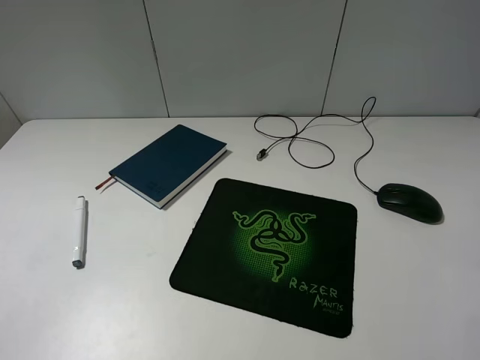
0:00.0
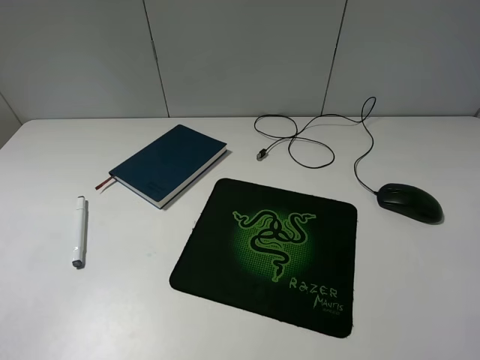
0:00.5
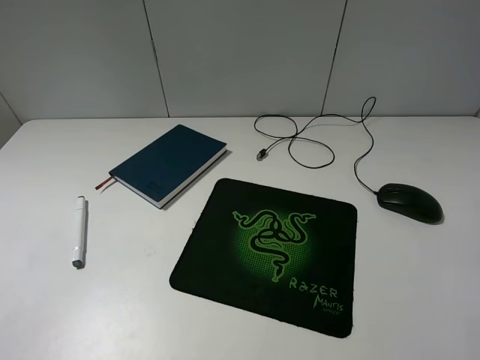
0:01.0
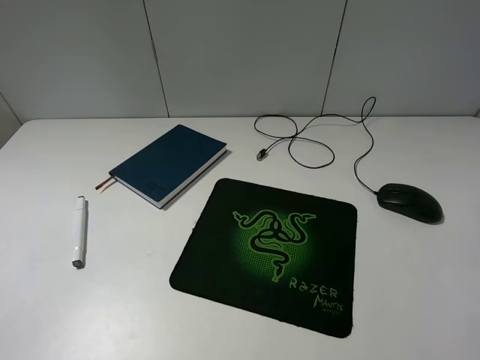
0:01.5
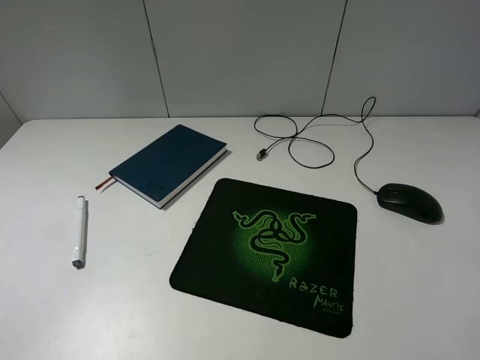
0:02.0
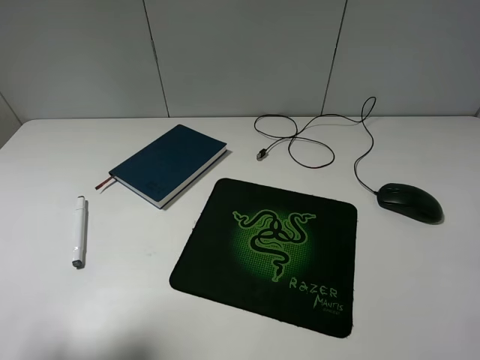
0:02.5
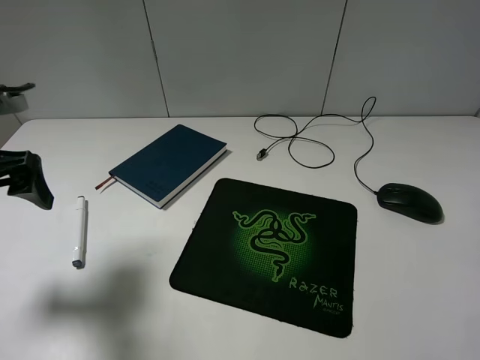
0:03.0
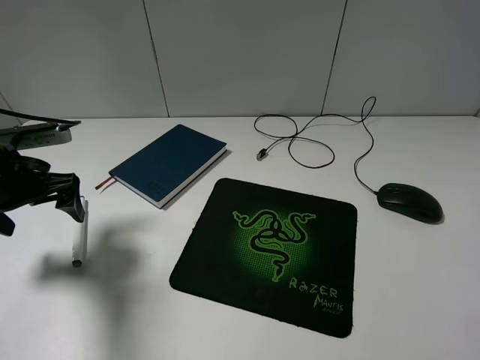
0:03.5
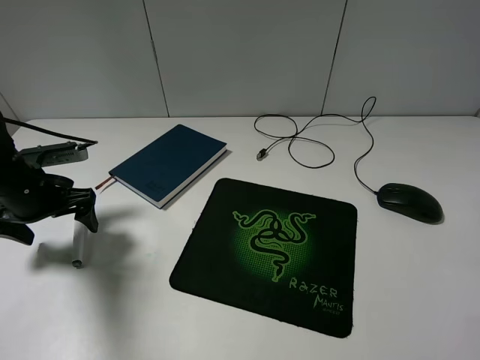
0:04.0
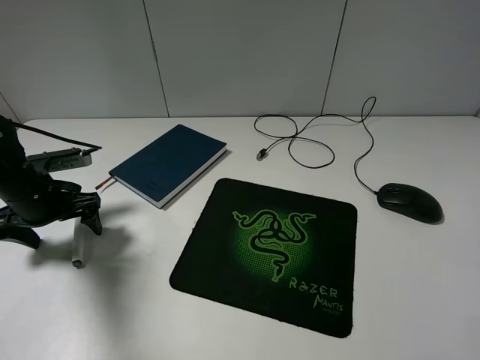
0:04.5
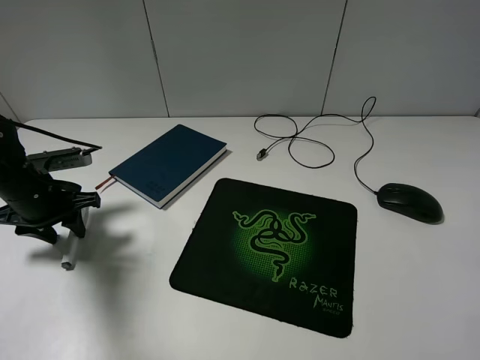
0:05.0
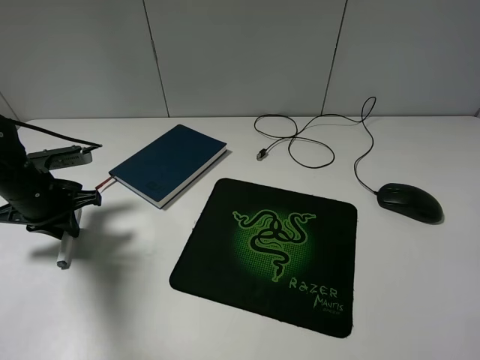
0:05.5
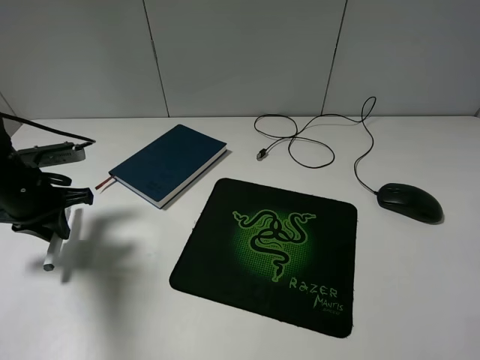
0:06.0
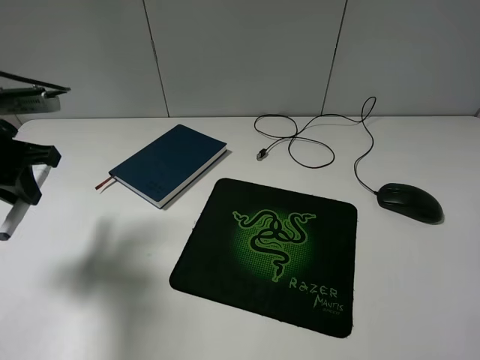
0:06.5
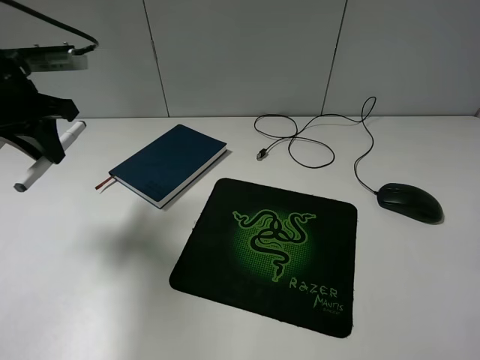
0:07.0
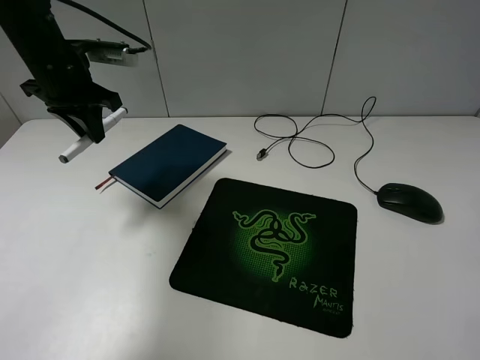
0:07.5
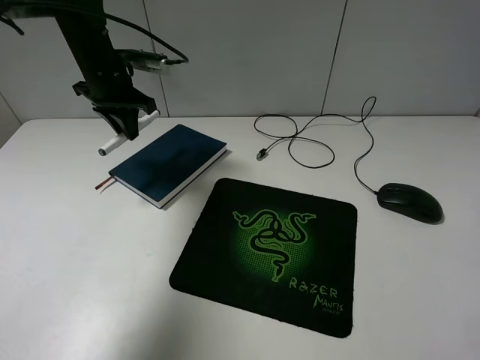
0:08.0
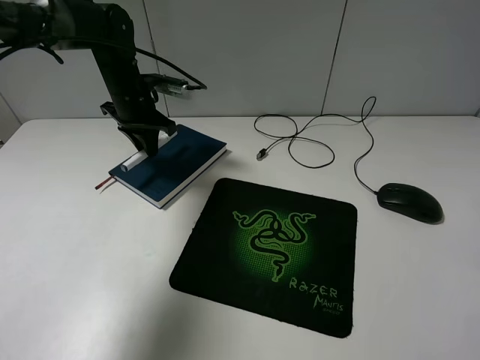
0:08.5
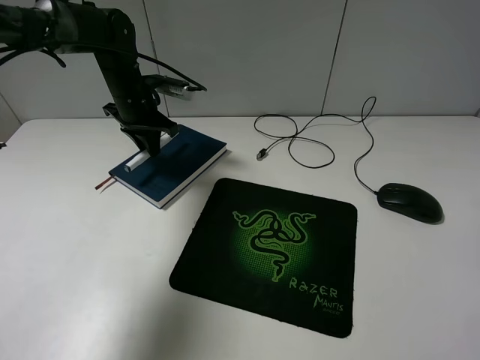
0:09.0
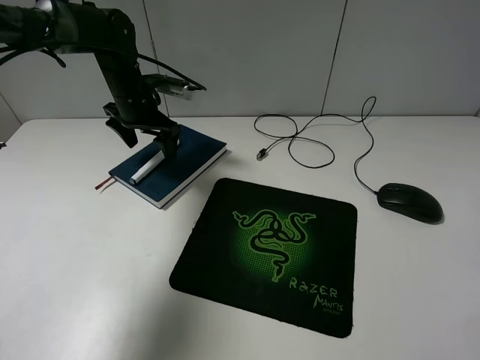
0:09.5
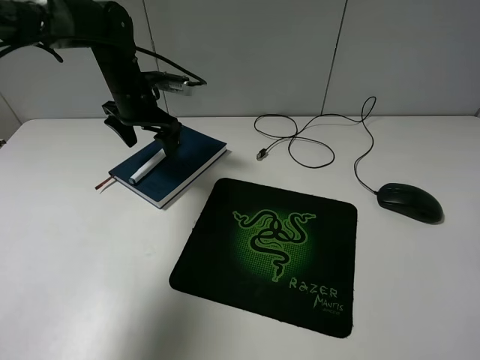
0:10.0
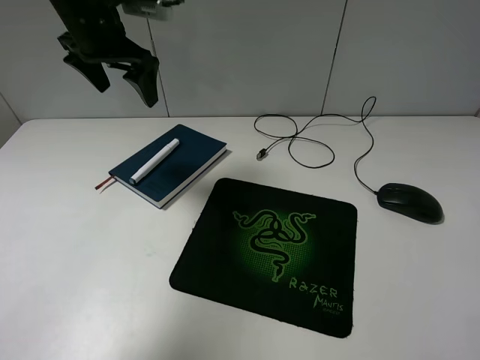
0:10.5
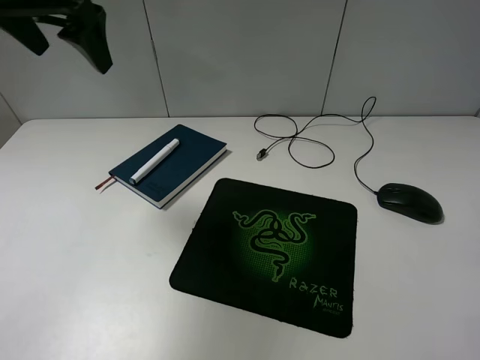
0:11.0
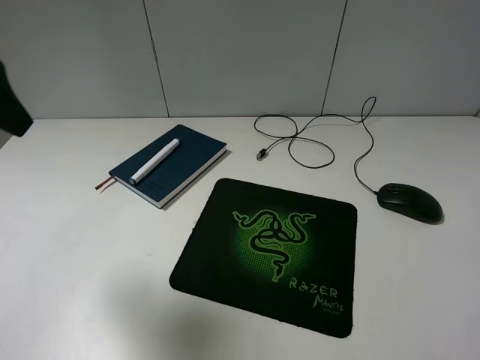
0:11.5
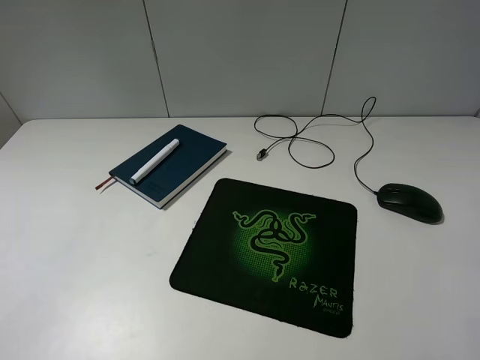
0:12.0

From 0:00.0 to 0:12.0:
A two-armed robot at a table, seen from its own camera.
Step, from 0:00.0 to 0:05.0: Grasp the marker with the left gripper.
Step, from 0:05.5 to 0:09.5: Place the marker on the notebook with the left gripper.
From 0:02.0 to 0:04.0: The left gripper heads forward and downward, covering approximately 30 cm.
From 0:04.0 to 0:06.0: The left gripper closes up.
From 0:06.0 to 0:08.0: The left gripper is displaced forward, to the right and upward by about 20 cm.
From 0:08.0 to 0:10.0: The left gripper opens its fingers.
From 0:10.0 to 0:12.0: The left gripper shifts roughly 40 cm backward and upward.

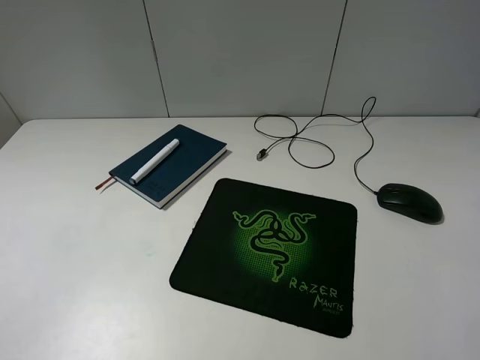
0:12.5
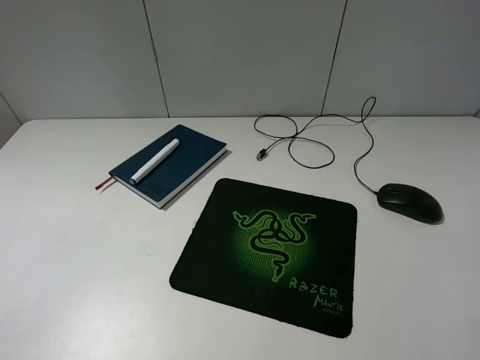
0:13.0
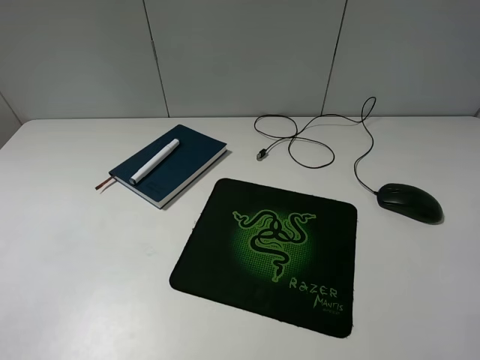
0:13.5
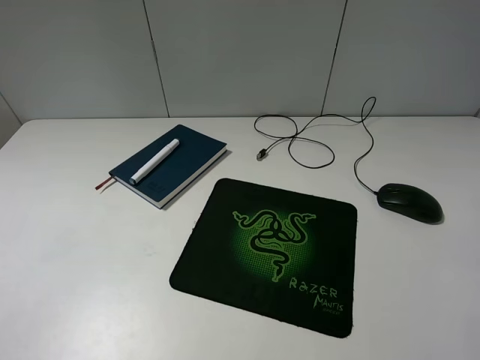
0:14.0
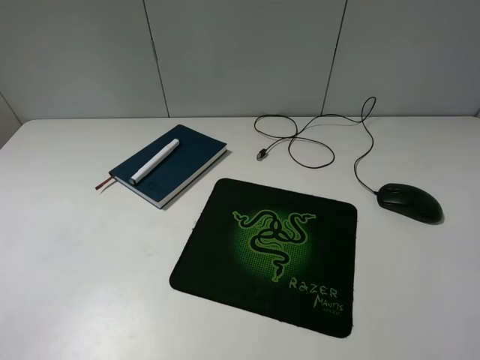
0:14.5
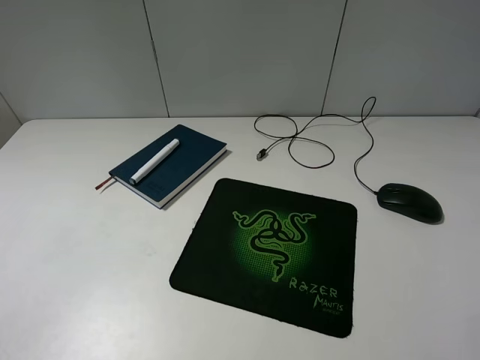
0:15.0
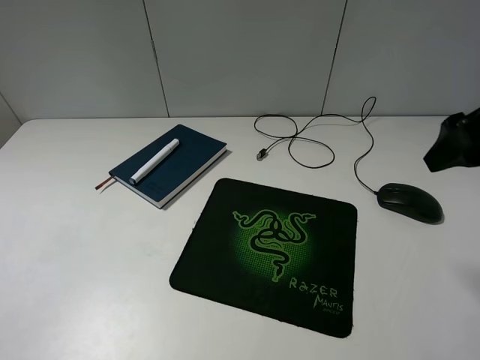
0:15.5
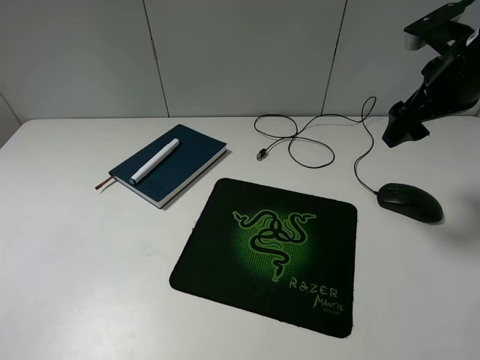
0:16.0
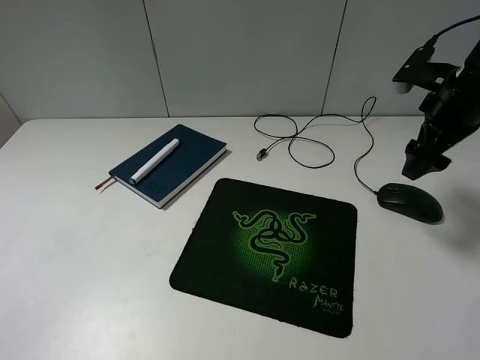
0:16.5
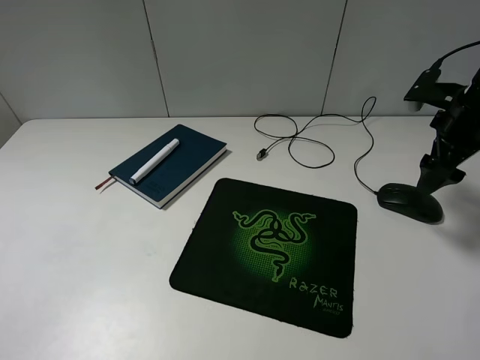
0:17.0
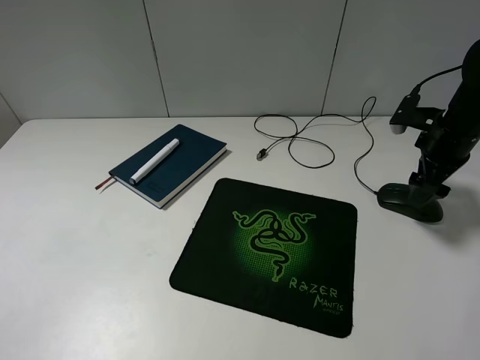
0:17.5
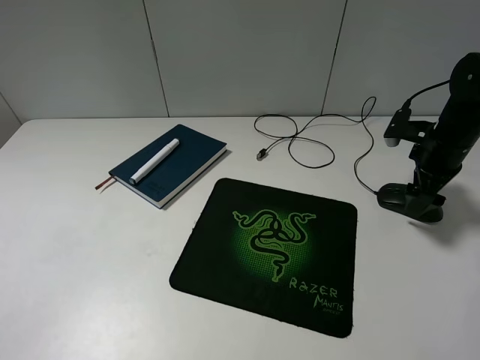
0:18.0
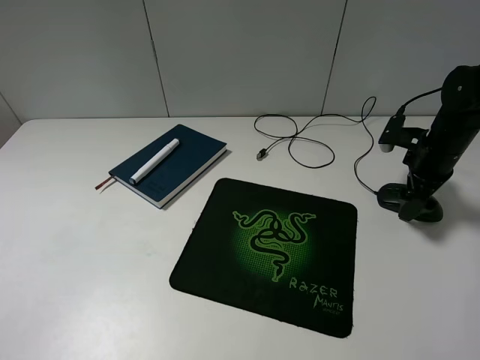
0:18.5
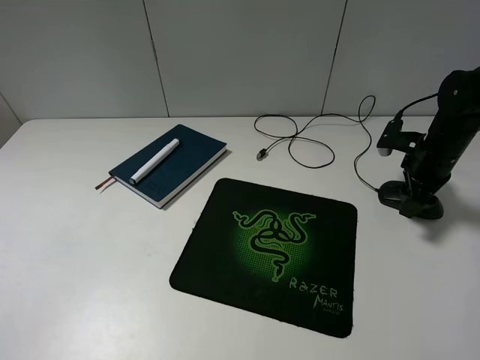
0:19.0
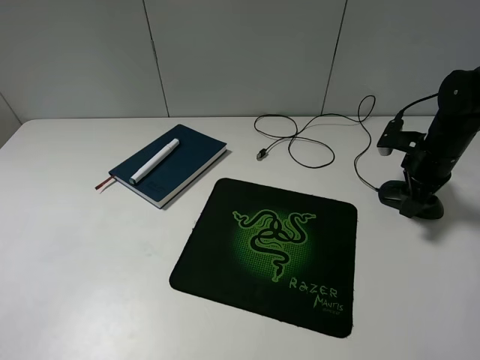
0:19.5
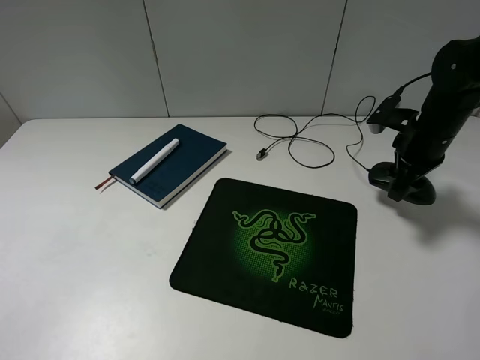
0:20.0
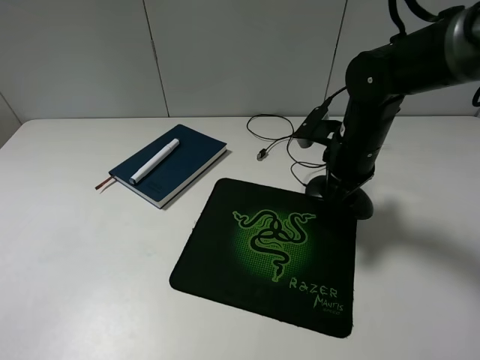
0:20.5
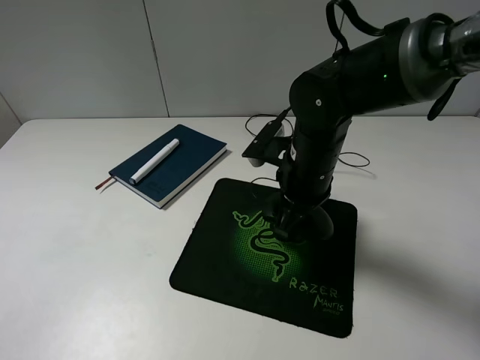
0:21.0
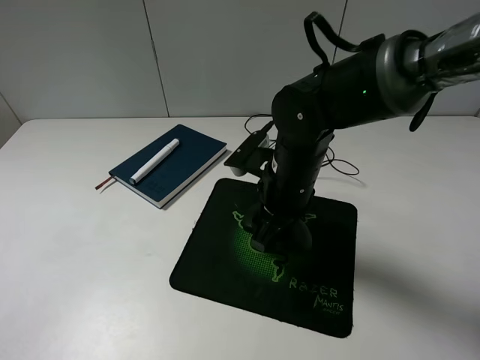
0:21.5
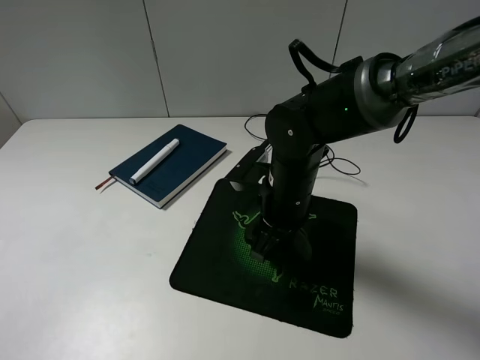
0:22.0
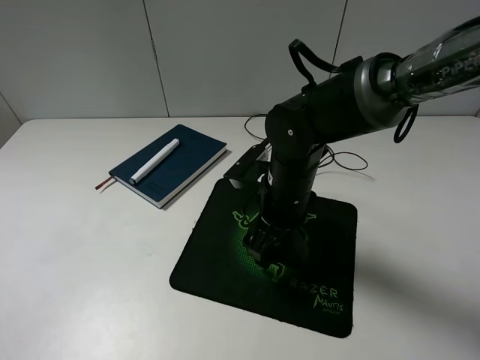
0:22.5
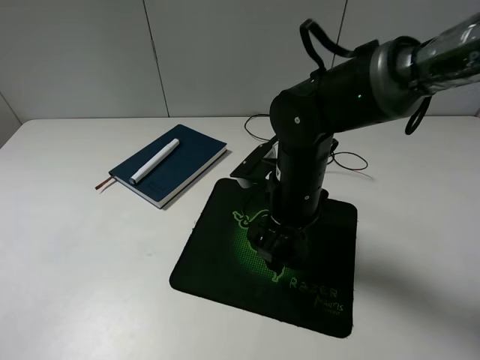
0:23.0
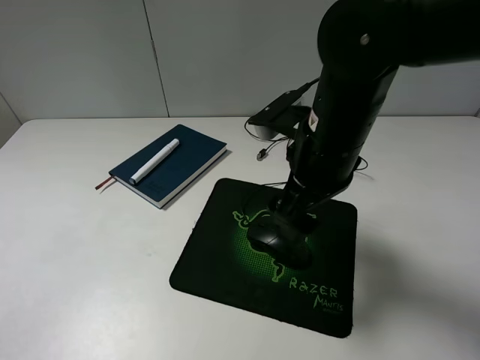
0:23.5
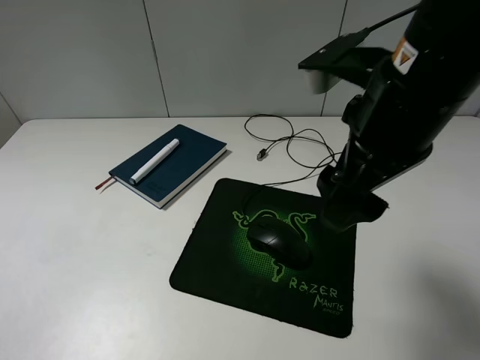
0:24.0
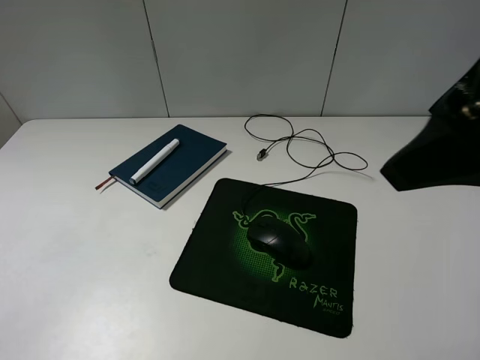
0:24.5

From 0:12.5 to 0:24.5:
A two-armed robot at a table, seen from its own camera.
Step, from 0:12.5 to 0:19.0: Grasp the mouse with the right gripper.
Step, from 0:19.5 to 0:23.0: Place the mouse on the mouse pad with the right gripper.
From 0:14.5 to 0:16.5: The right gripper moves forward, about 35 cm.
From 0:16.5 to 0:18.5: The right gripper heads downward, covering about 10 cm.
From 0:18.5 to 0:20.5: The right gripper heads to the left, covering approximately 15 cm, and closes.
From 0:20.5 to 0:22.5: The right gripper is displaced to the left and backward by approximately 10 cm, and opens up.
From 0:22.5 to 0:24.5: The right gripper moves upward, backward and to the right, approximately 30 cm.

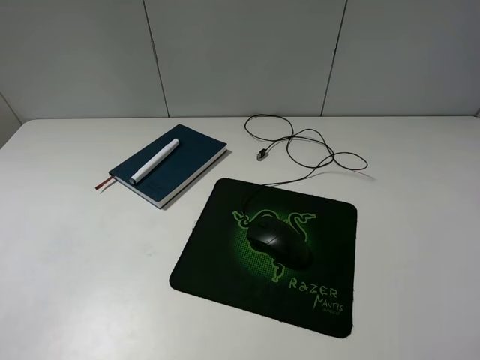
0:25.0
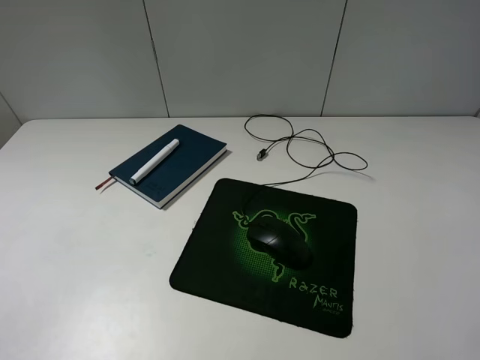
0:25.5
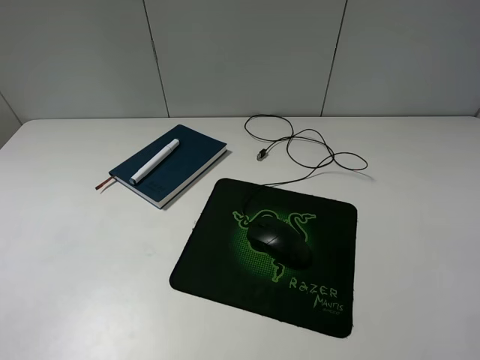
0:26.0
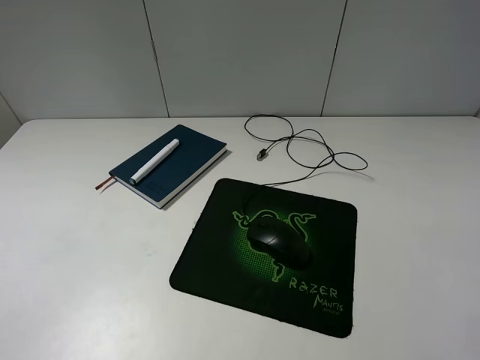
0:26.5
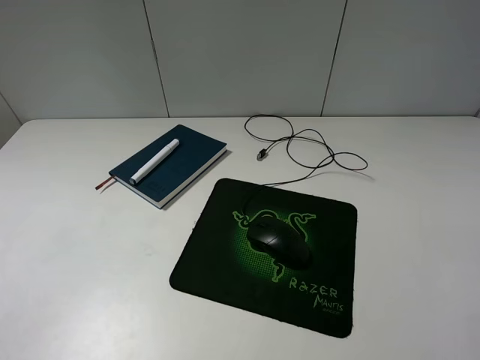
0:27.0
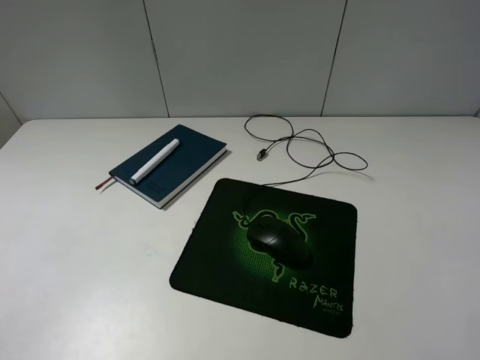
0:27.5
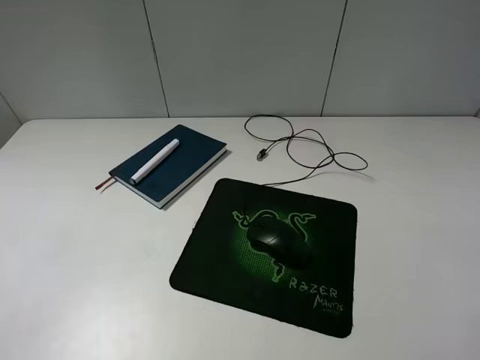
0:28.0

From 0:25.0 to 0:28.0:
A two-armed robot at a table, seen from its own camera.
From 0:26.5 to 0:28.0: Both grippers stay put.
